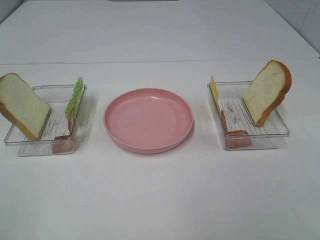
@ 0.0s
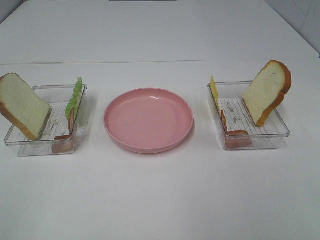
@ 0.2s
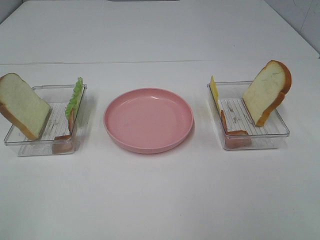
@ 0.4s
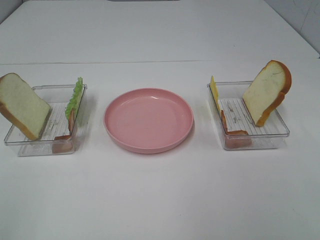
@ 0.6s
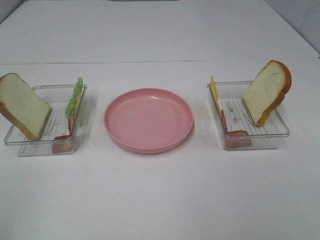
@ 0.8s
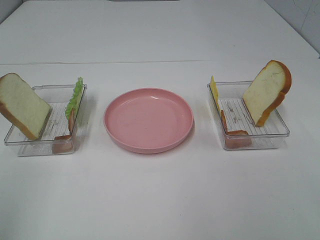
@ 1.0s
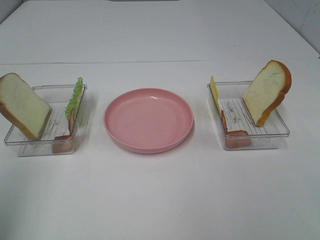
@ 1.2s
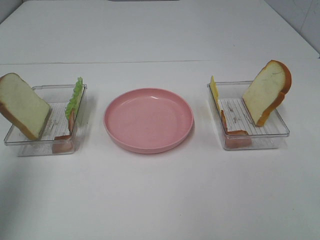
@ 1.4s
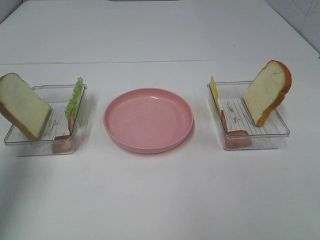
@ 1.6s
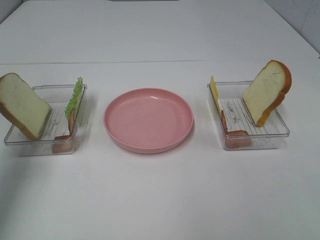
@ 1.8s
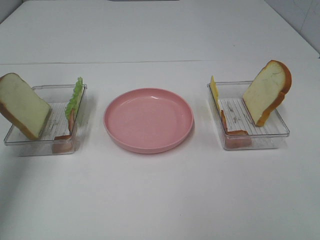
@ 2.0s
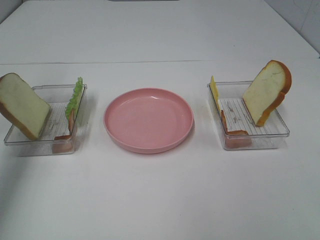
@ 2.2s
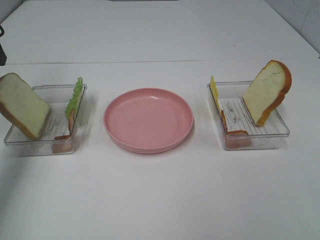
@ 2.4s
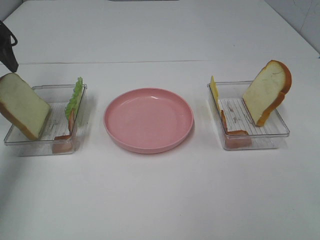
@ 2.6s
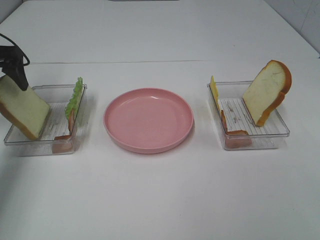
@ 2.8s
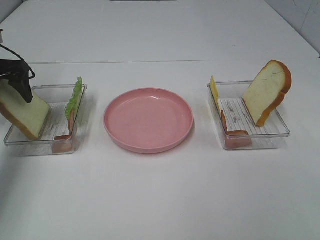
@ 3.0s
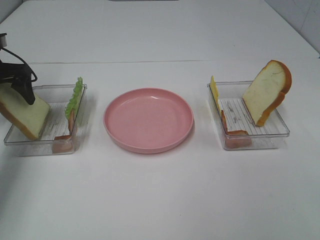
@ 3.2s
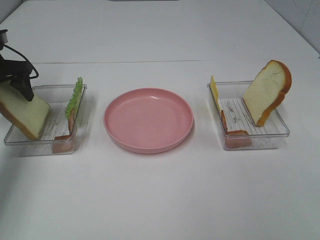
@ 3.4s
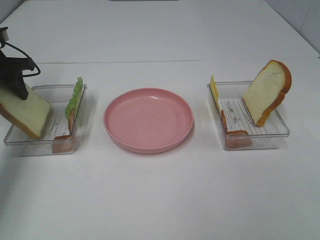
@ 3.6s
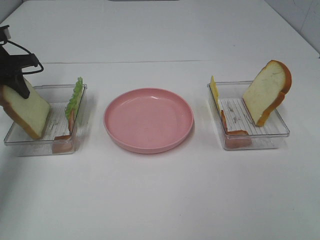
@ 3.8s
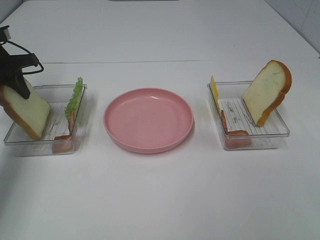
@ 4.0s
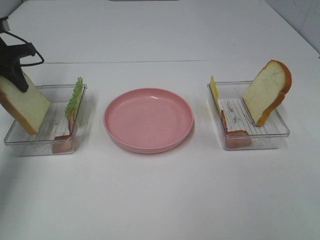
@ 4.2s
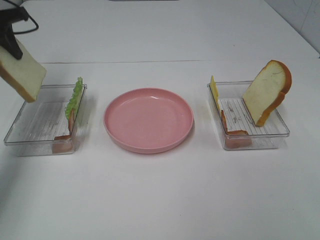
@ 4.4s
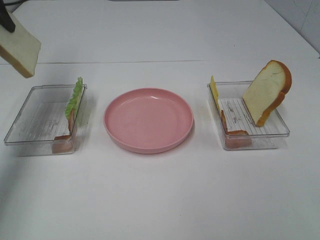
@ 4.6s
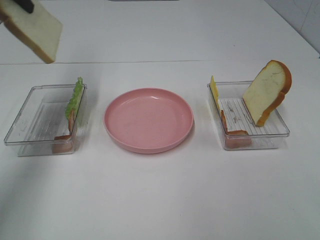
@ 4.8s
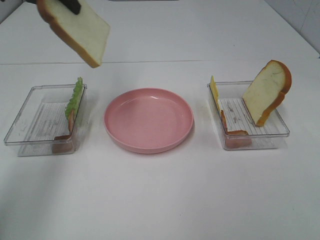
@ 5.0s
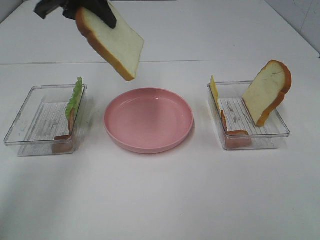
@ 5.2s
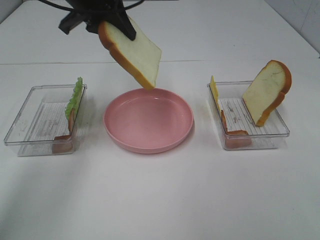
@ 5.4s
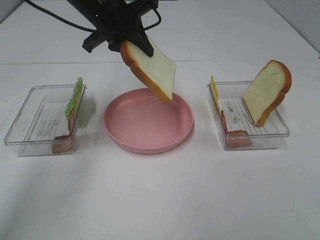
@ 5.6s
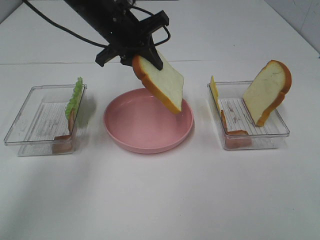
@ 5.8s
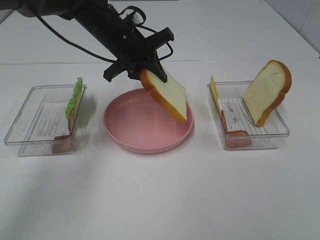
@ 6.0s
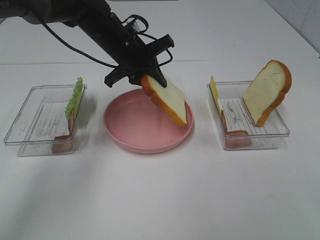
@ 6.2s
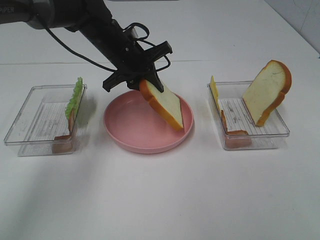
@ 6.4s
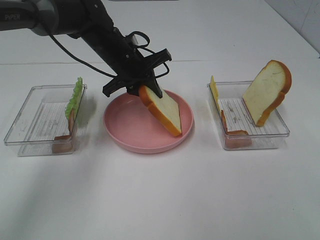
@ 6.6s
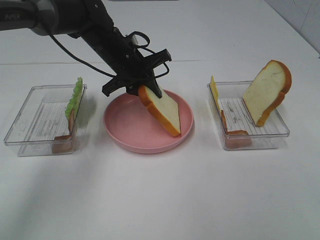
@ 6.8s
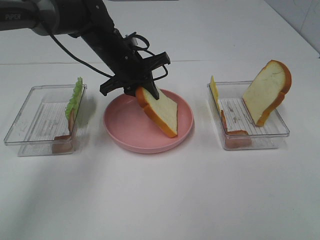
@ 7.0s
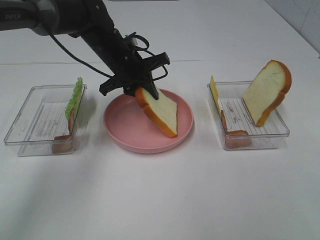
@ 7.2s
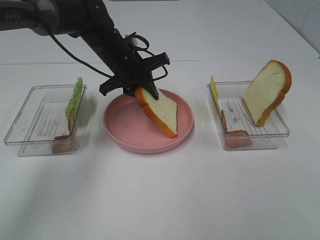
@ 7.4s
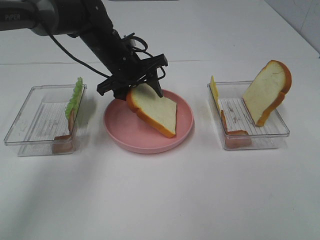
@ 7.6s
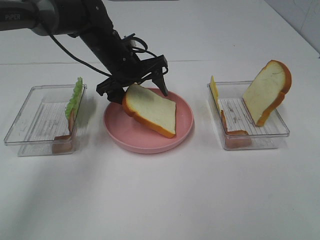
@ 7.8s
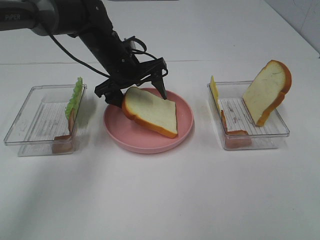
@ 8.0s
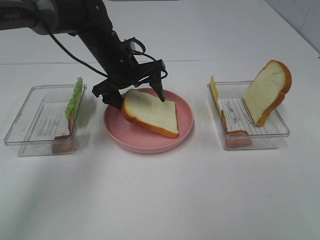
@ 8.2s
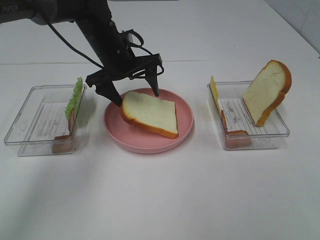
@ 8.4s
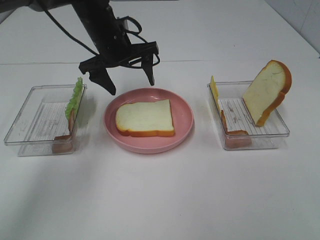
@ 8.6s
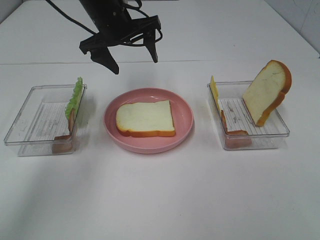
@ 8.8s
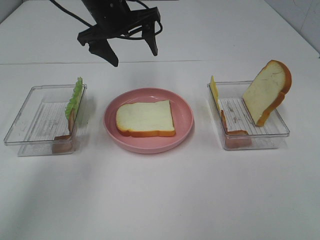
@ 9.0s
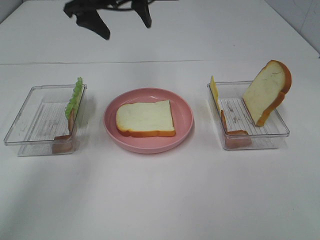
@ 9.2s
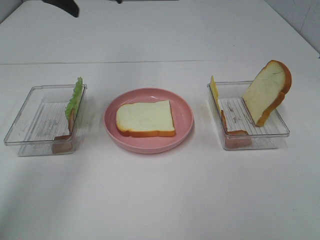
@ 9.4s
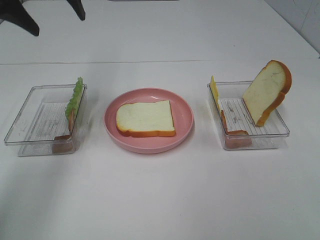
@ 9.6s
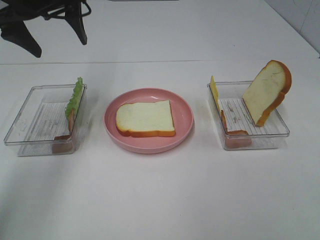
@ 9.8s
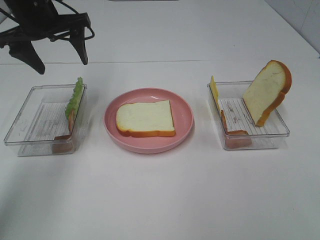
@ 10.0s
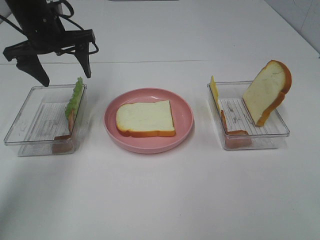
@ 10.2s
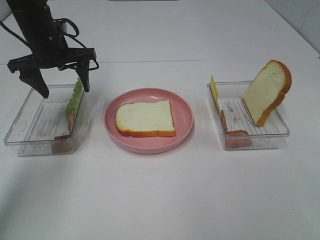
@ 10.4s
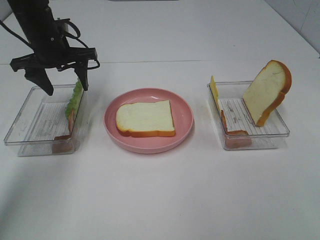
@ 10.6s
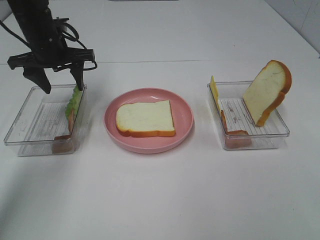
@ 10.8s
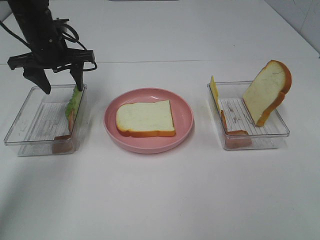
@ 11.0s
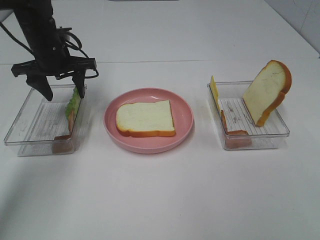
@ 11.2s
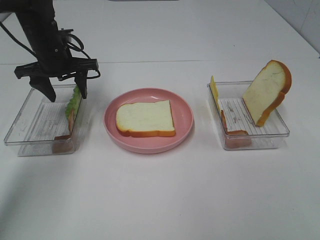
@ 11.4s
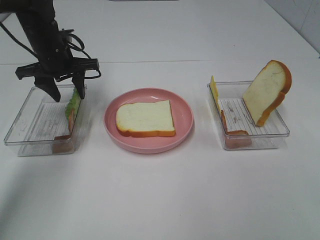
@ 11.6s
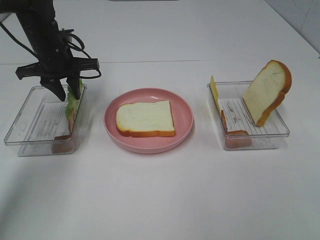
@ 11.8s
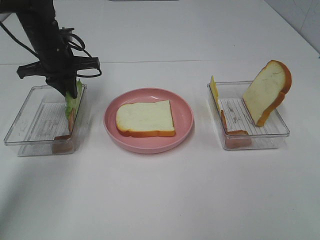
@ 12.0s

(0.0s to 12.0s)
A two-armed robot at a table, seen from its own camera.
Task of the whole recording: Make sandwiches.
Step, 0.0s - 3.6s: Left hand:grab the bread slice.
Step, 3.8s - 8.4s: Left hand:place the bread slice on the plate.
Step, 8.6s - 12.0s: Left hand:grab the lettuce slice.
0.0s - 1.6s: The left gripper heads forward, covering some 25 cm.
1.6s - 3.0s: The left gripper travels forward and downward by roughly 25 cm.
3.0s - 4.4s: The left gripper heads upward, covering about 10 cm, and closes up.
4.4s - 6.0s: The left gripper goes roughly 25 cm to the right.
6.0s - 7.6s: The left gripper opens up.
7.6s - 9.0s: The left gripper is displaced upward by about 10 cm.
9.0s - 10.4s: The left gripper goes approximately 15 cm to the left and downward.
10.4s - 12.0s: The left gripper closes its fingers.

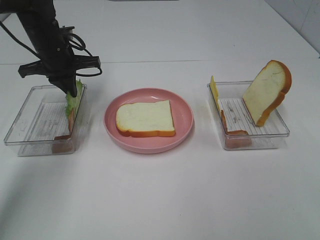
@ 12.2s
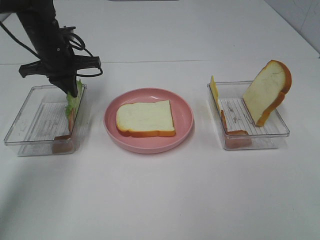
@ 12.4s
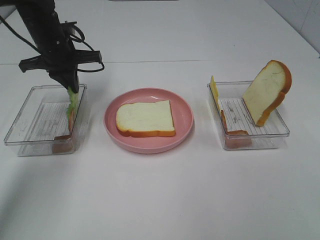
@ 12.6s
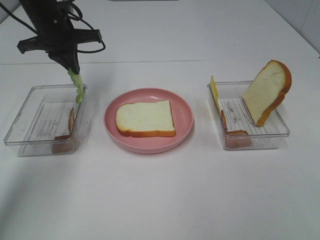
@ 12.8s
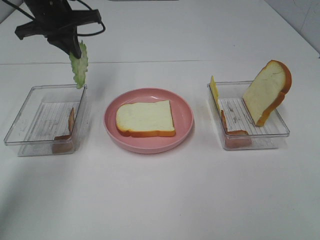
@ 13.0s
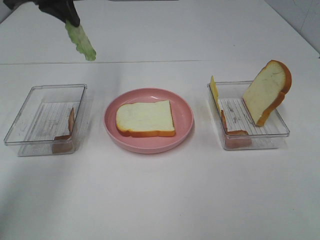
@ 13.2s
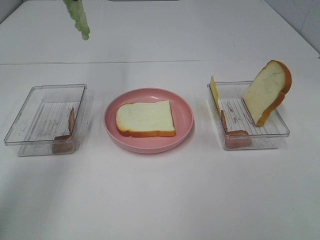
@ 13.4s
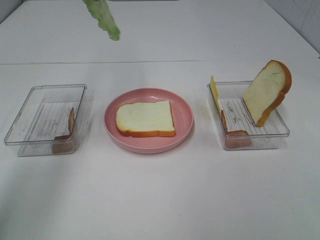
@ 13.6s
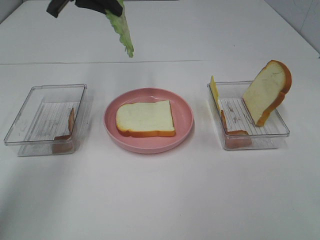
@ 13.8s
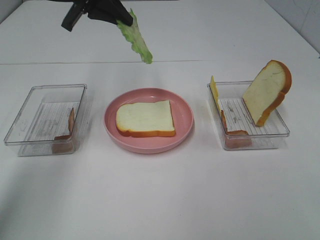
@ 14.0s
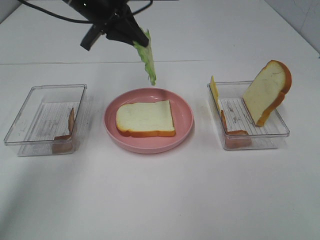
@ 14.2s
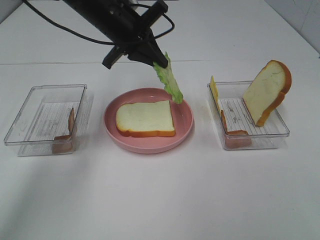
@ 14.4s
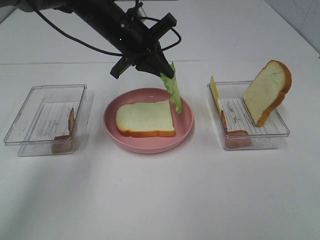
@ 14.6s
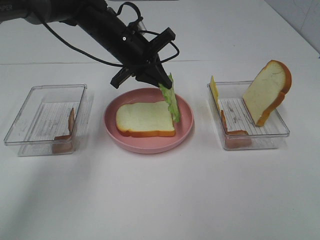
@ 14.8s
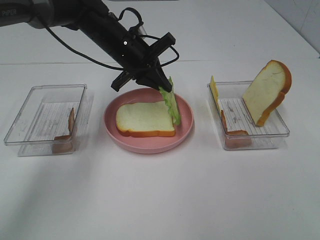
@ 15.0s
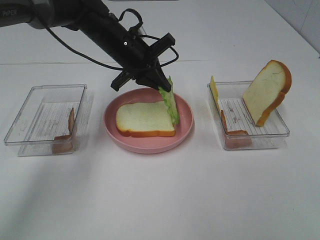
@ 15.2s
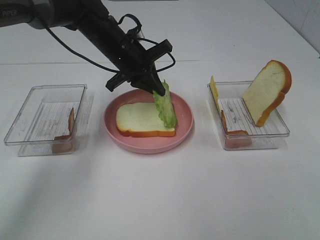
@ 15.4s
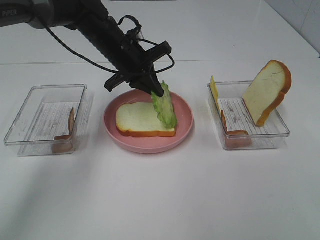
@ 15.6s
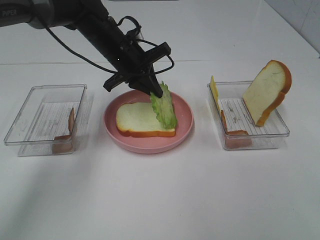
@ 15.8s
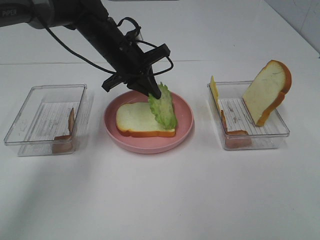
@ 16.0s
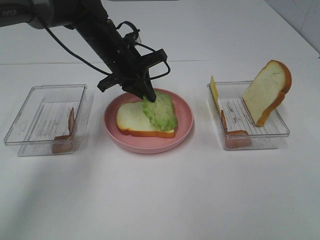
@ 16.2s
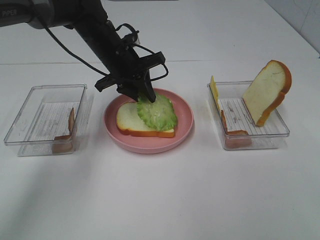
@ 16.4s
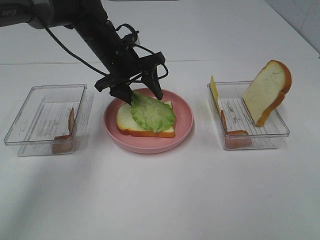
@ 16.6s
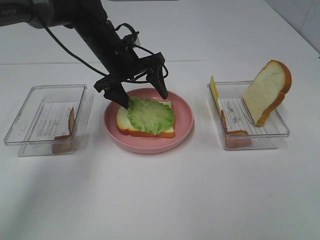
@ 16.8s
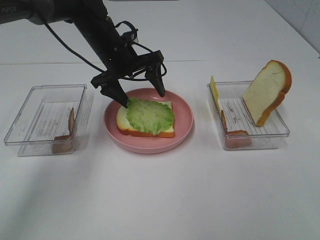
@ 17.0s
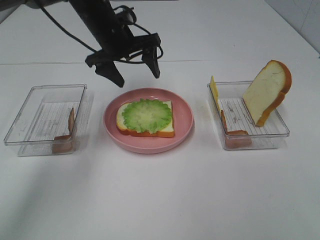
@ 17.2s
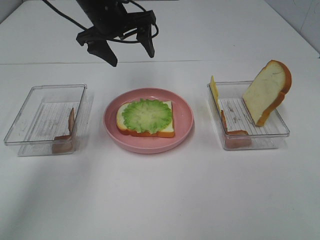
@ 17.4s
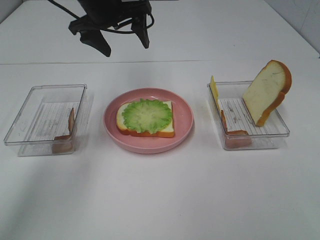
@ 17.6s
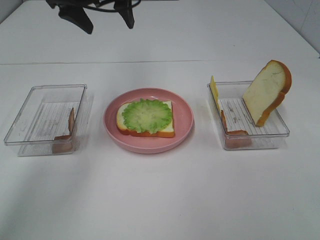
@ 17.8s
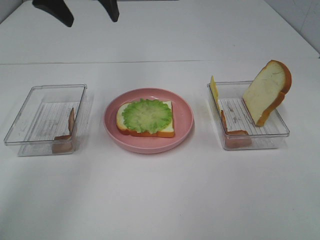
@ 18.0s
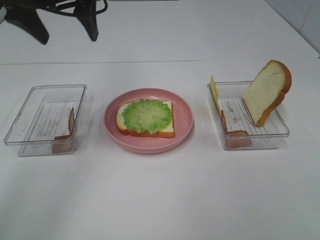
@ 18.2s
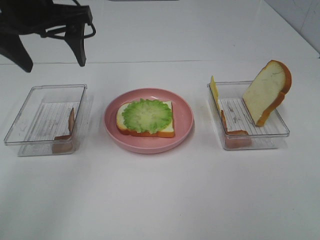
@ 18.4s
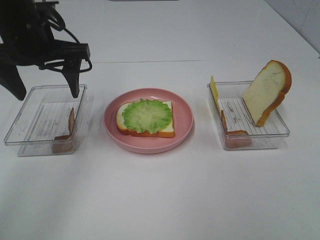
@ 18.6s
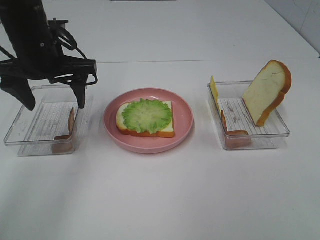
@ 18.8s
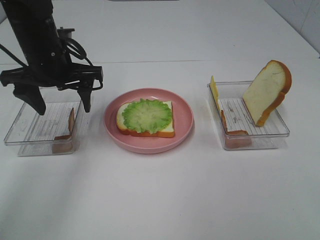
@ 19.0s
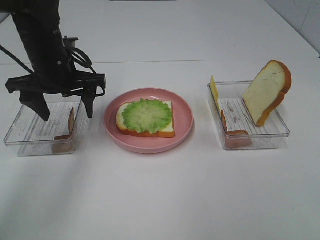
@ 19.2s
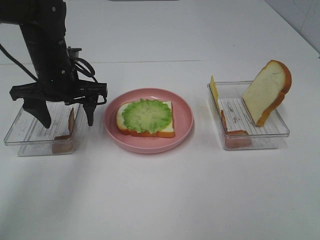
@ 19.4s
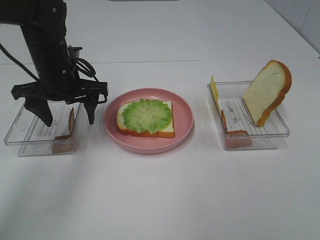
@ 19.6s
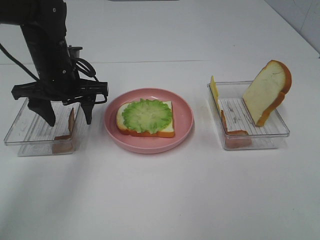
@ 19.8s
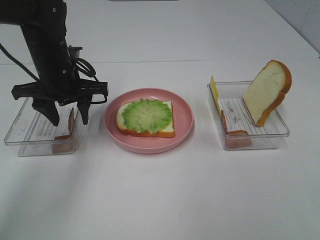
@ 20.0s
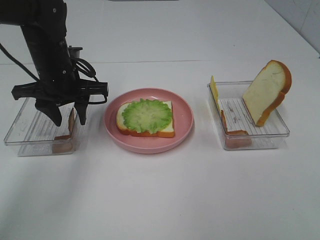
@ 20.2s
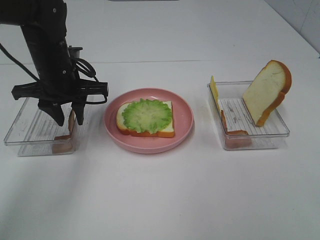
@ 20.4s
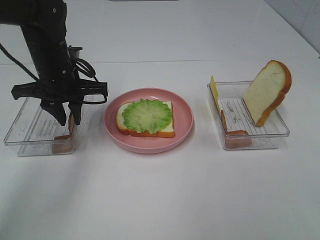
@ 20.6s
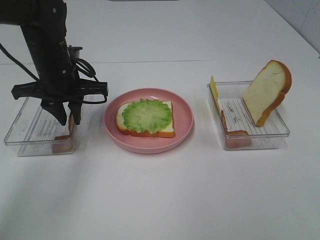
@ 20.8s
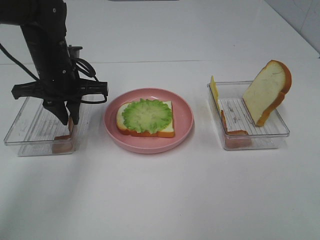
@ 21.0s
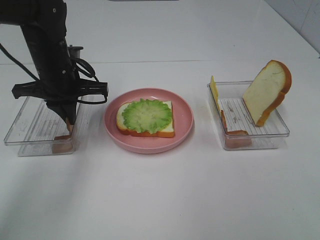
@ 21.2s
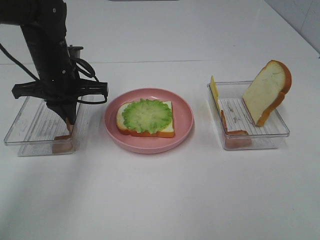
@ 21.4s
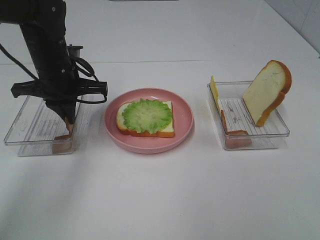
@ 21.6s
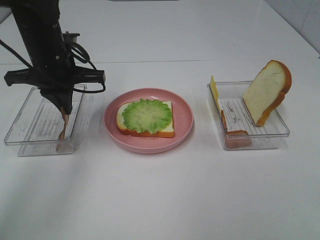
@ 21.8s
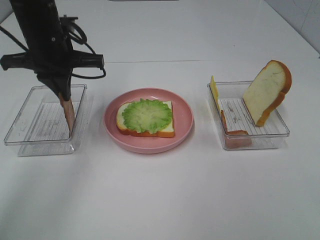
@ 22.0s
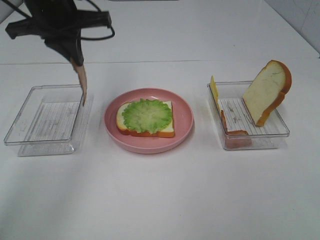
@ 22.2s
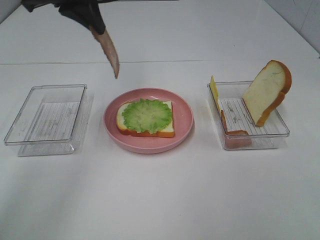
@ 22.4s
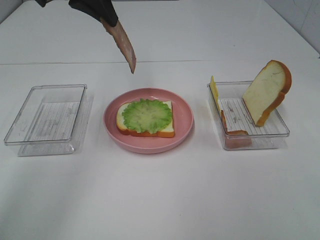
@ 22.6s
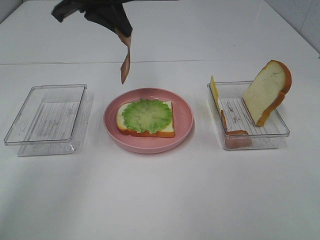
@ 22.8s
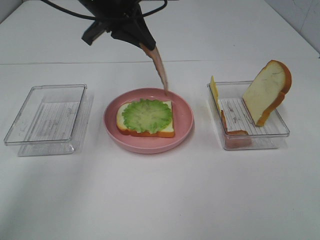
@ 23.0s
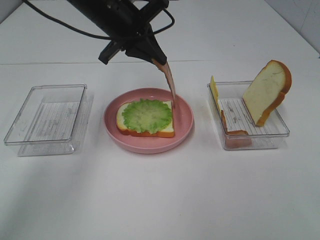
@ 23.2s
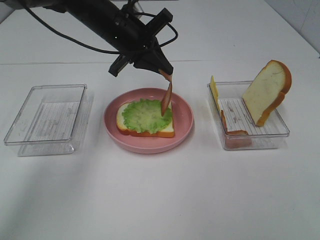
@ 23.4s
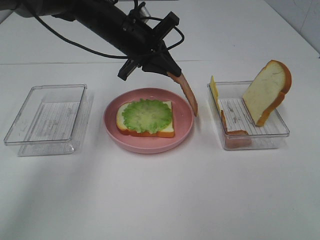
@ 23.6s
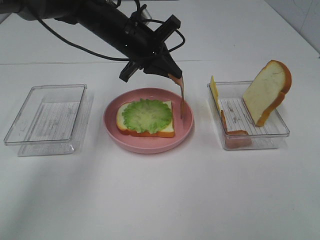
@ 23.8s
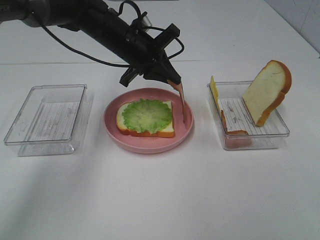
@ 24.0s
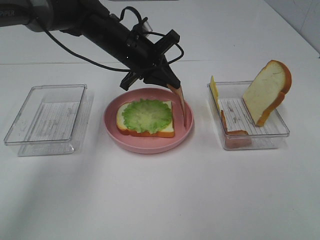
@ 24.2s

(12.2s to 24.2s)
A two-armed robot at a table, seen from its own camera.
Task of the whole recording: Make sandwiches.
Step, 12.2s - 17.2s: Left hand:place the lettuce slice on the bread slice.
Step, 17.4s - 21.2s: Left hand:grab the bacon.
12.2s - 13.8s: The left gripper travels upward by about 15 cm.
13.8s - 15.2s: The left gripper shifts about 15 cm downward and to the right.
15.2s - 16.6s: The left gripper opens its fingers.
16.6s - 18.2s: The left gripper goes roughly 20 cm upward, to the left and backward.
18.2s - 19.8s: The left gripper heads downward, covering roughly 15 cm.
19.8s - 21.2s: The left gripper closes its fingers.
21.2s - 22.6s: The left gripper goes roughly 15 cm upward.
22.6s - 24.2s: The left gripper moves downward, some 15 cm.
